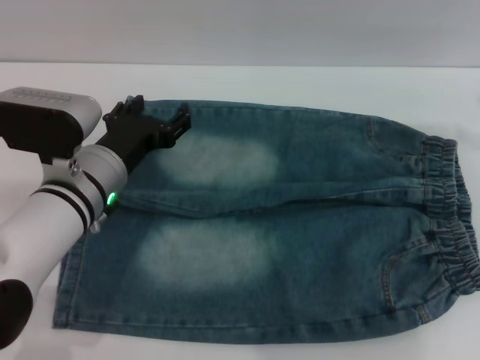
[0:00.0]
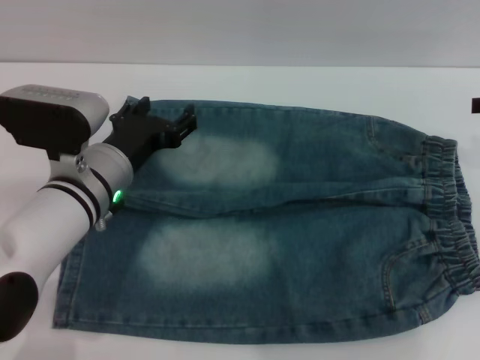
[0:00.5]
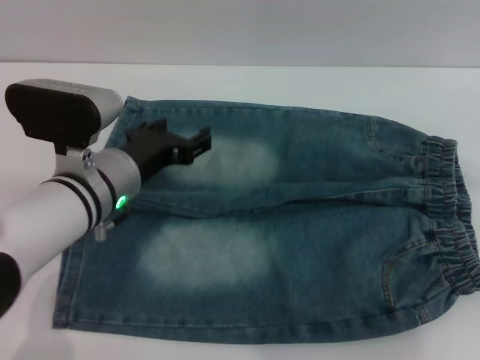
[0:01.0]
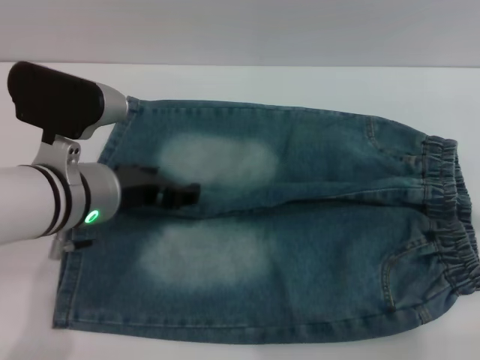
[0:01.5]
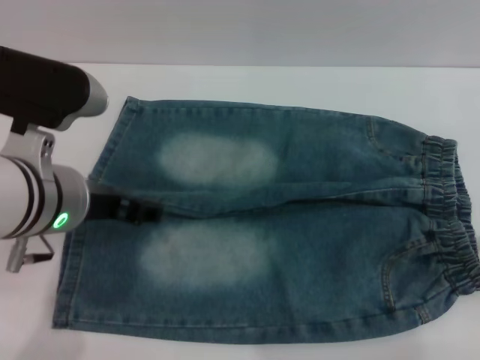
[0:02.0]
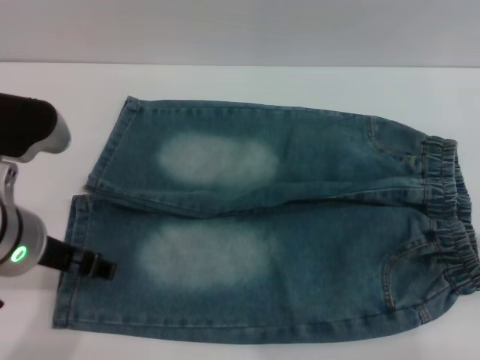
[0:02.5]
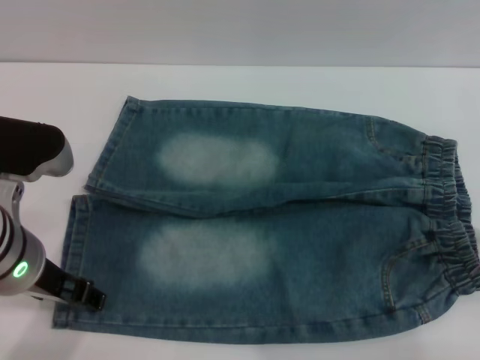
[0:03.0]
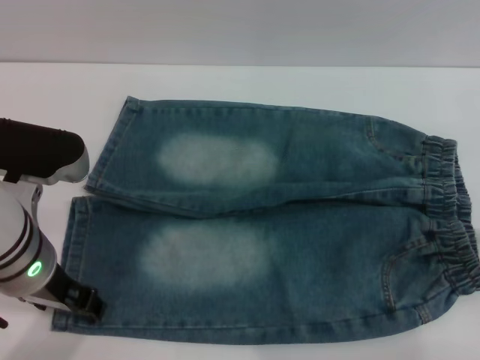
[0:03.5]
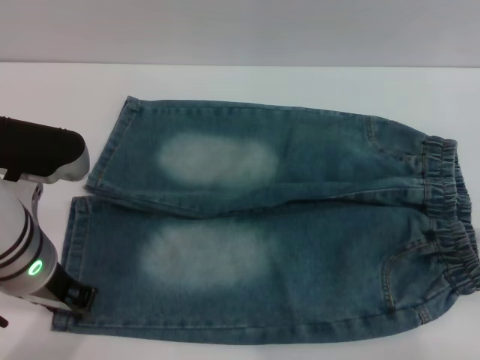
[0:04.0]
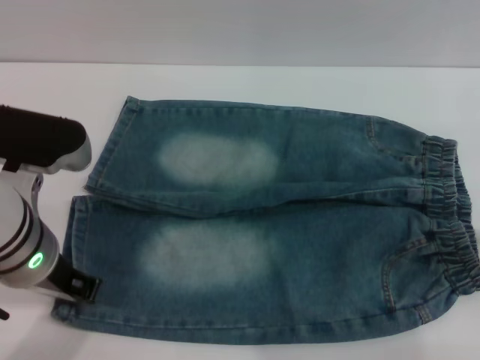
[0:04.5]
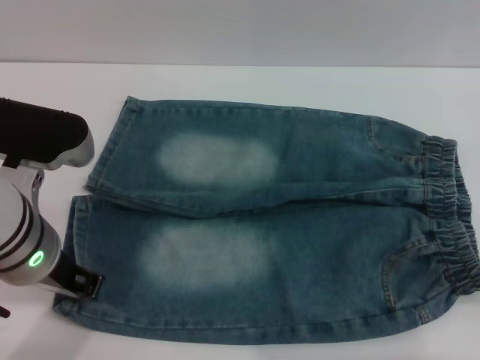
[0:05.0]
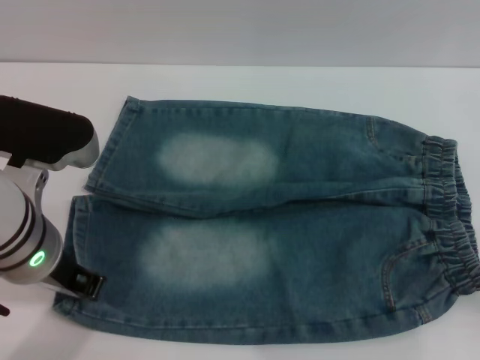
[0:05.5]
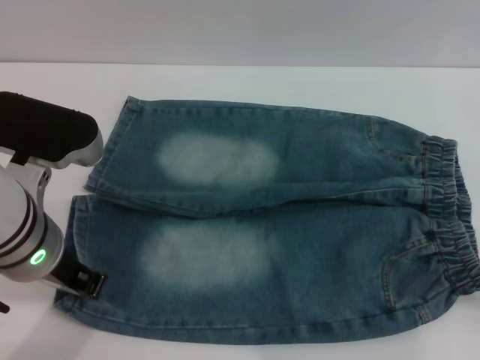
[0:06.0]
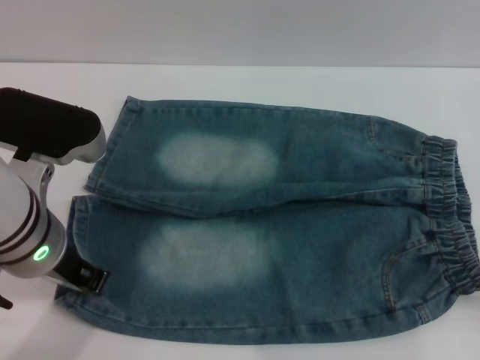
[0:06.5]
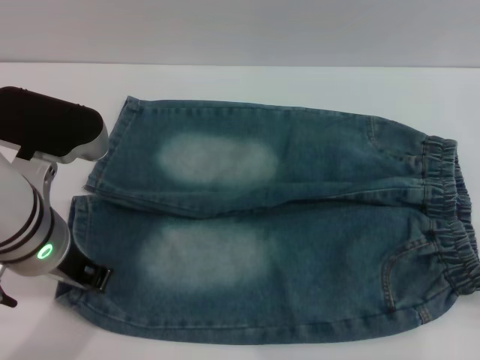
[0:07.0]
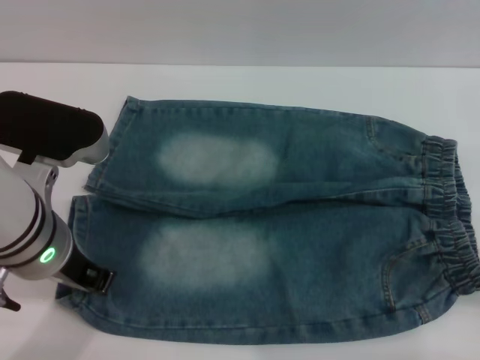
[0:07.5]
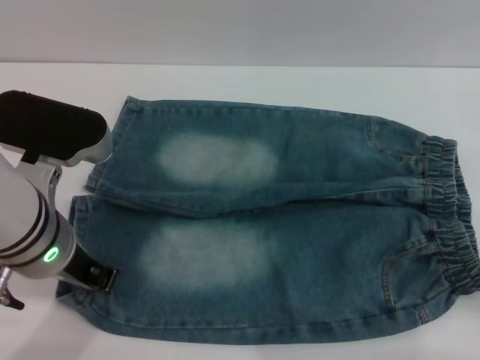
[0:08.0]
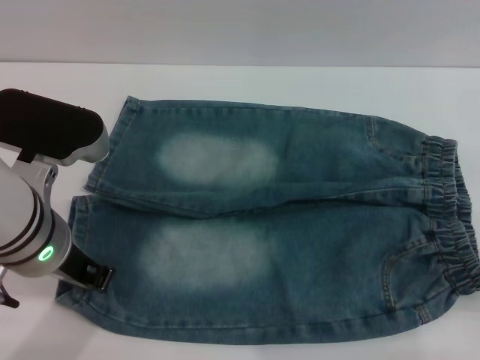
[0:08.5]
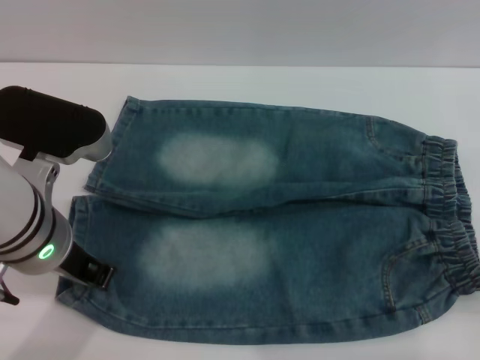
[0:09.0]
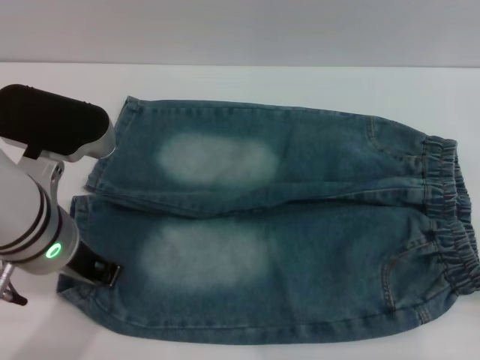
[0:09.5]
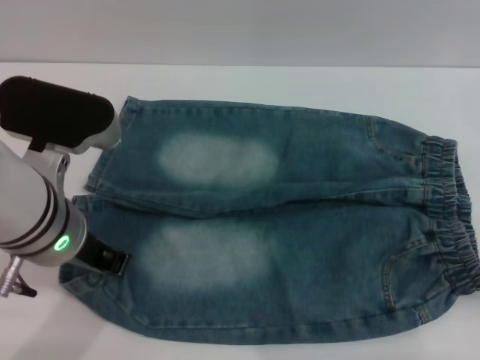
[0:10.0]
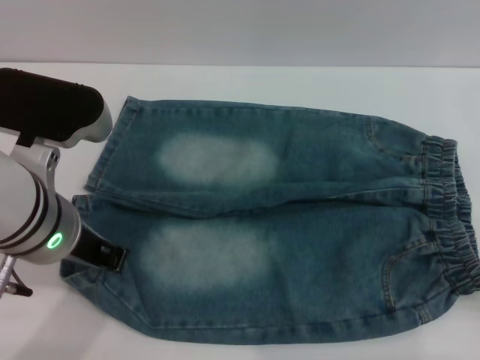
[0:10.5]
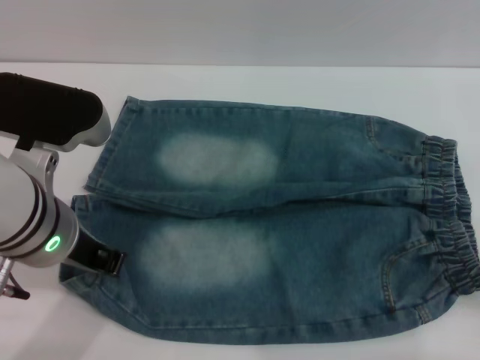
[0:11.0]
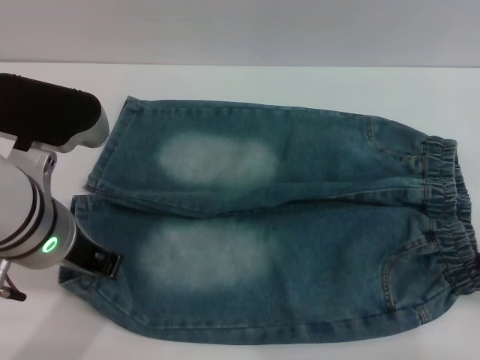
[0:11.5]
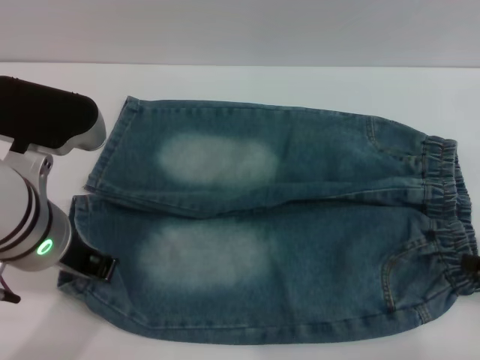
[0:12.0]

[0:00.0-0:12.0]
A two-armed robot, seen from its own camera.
0:00.0 to 0:02.0: The left gripper heads upward, covering some 10 cm.
0:04.0 to 0:06.0: The left gripper closes its fingers.
0:06.0 to 0:08.0: There are only small adjustments of the grippers.

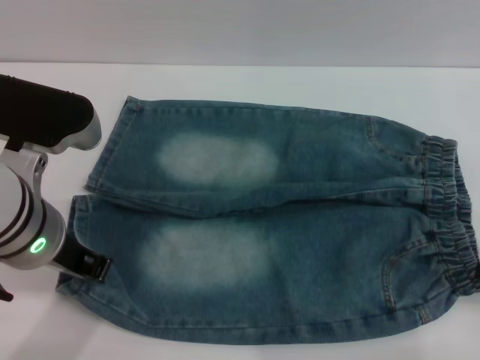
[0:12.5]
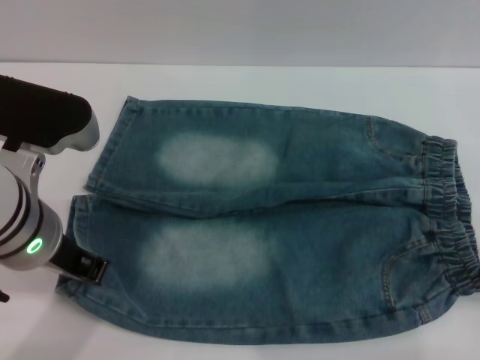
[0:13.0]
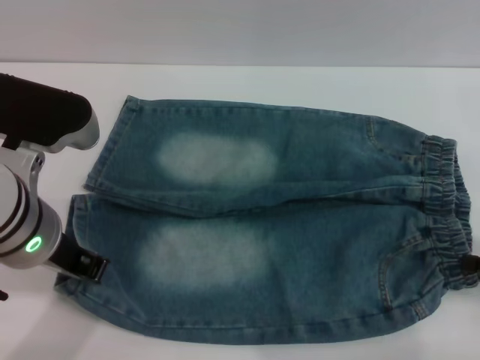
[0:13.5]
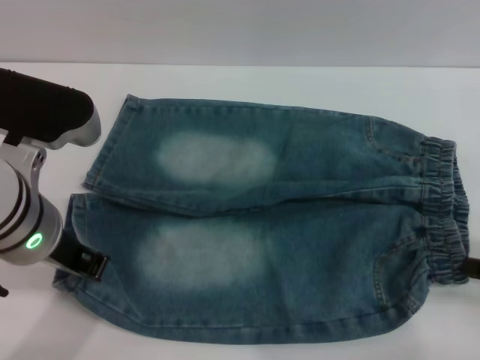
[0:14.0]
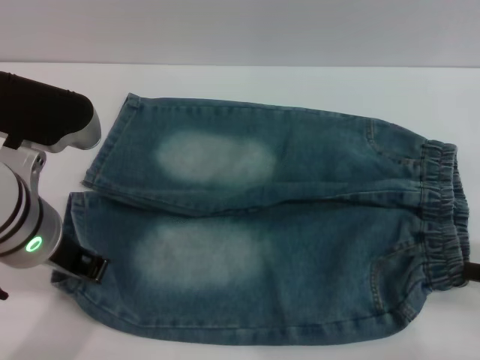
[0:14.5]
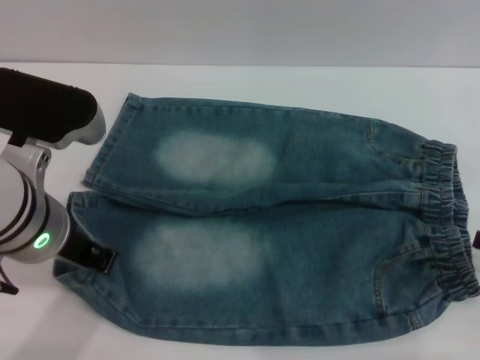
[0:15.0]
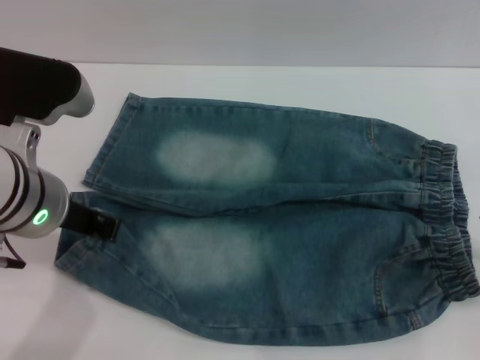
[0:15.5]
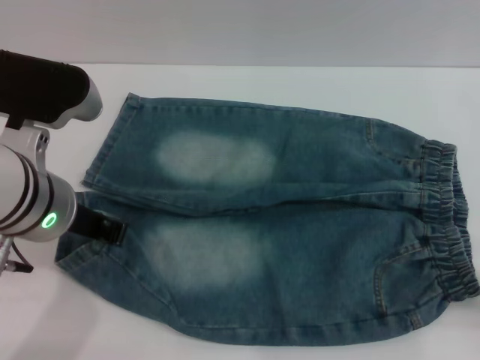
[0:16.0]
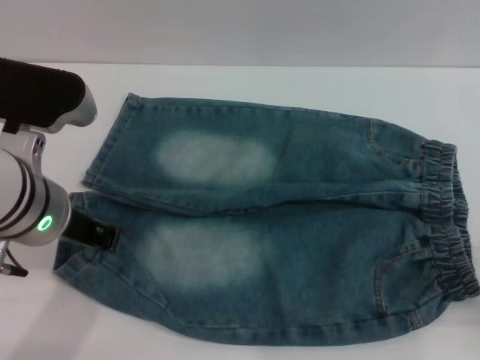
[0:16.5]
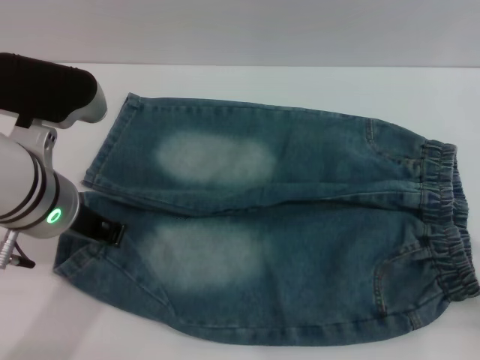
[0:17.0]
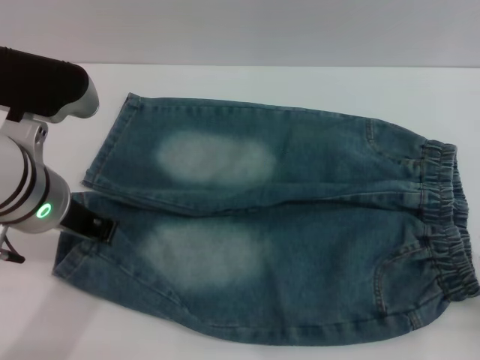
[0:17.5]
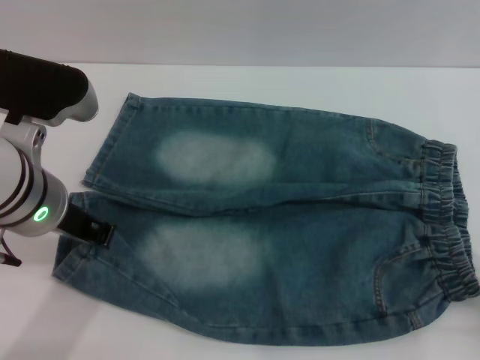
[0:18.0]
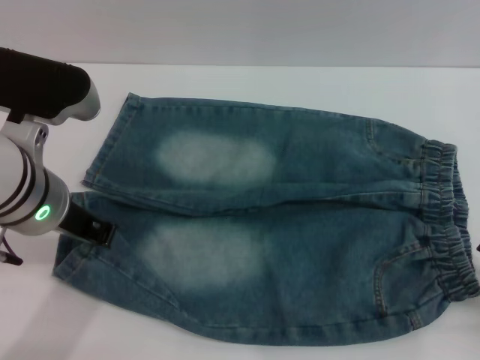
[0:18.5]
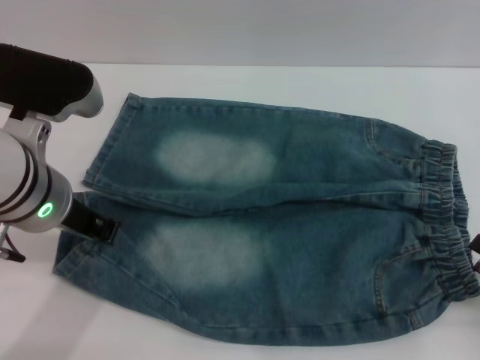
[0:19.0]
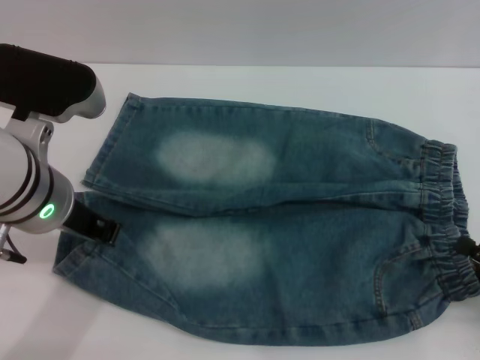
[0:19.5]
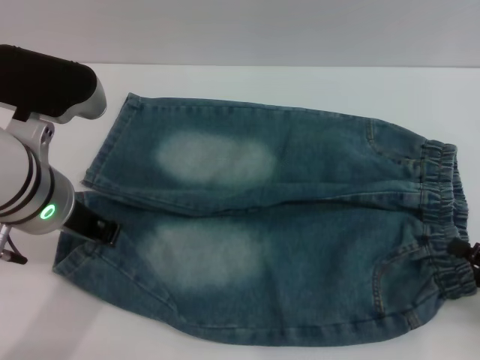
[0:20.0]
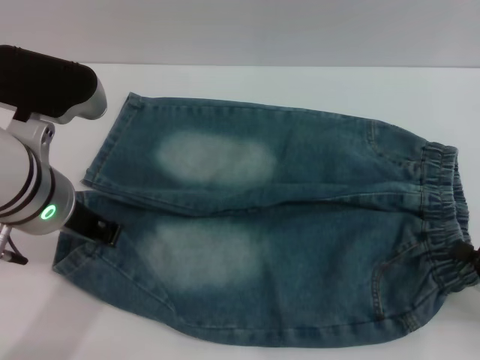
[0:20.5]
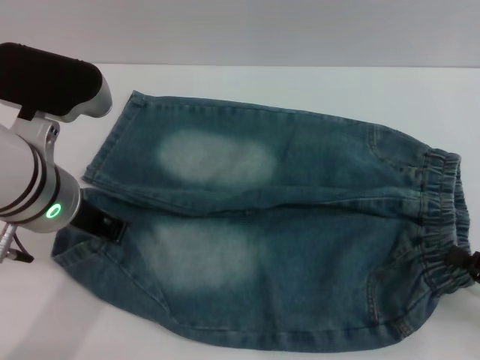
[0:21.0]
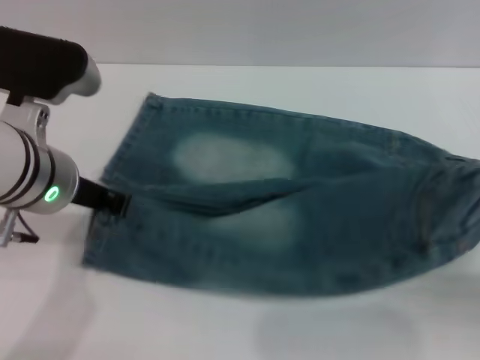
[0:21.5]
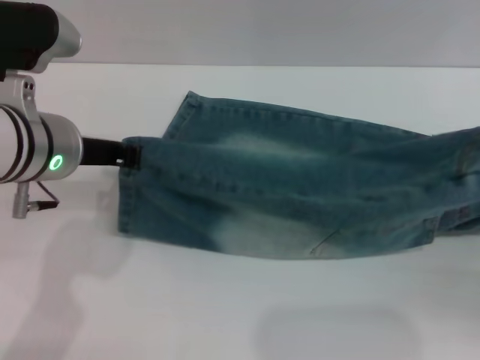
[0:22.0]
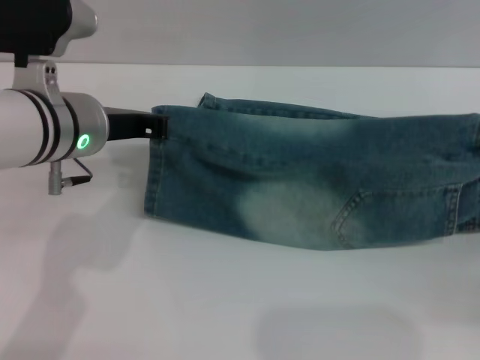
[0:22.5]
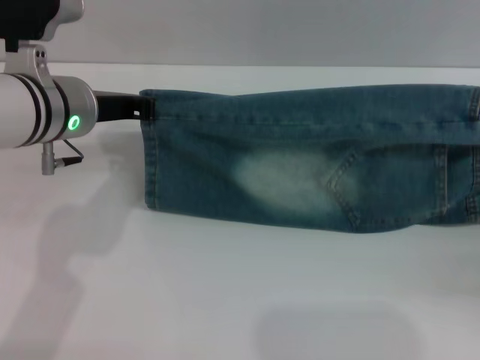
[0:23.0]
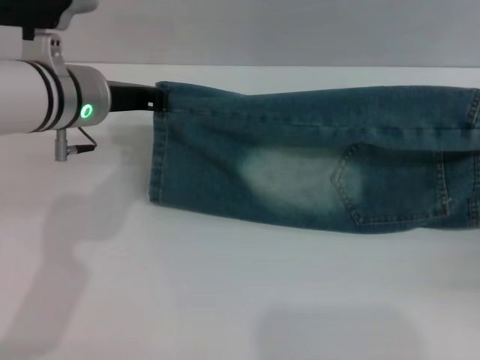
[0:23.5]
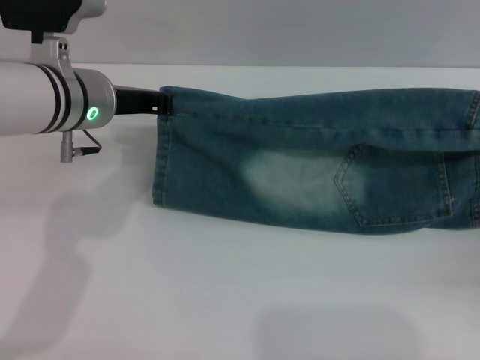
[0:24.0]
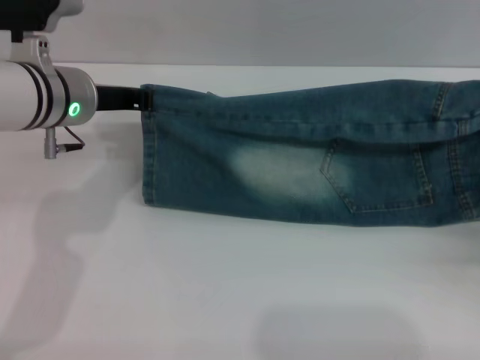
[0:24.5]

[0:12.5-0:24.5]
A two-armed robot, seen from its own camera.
0:12.5 to 0:14.5: The right gripper closes.
0:14.5 to 0:16.5: The right gripper opens.
0:18.5 to 0:20.5: The right gripper closes.
0:20.5 to 0:22.5: The right gripper closes.
0:22.5 to 0:24.5: The grippers both shift forward by approximately 5 cm.

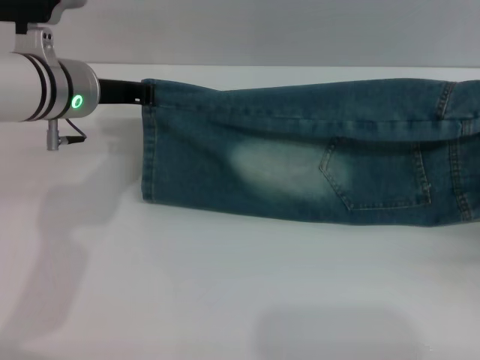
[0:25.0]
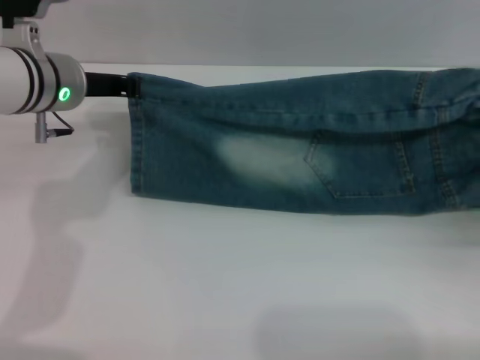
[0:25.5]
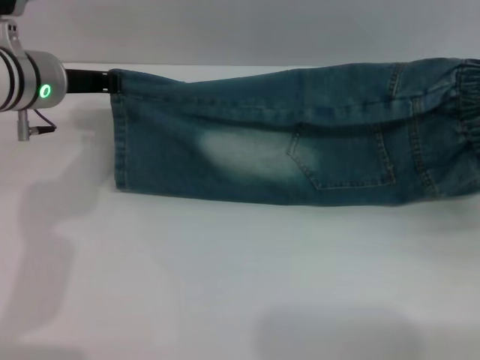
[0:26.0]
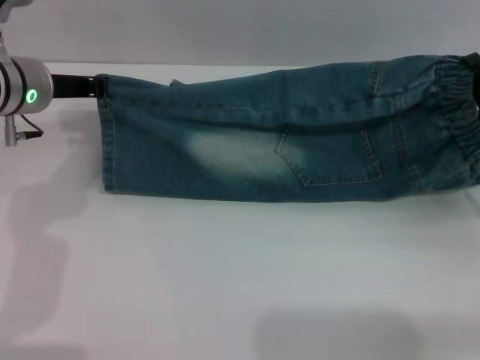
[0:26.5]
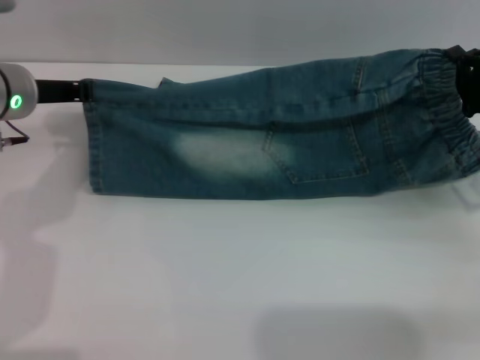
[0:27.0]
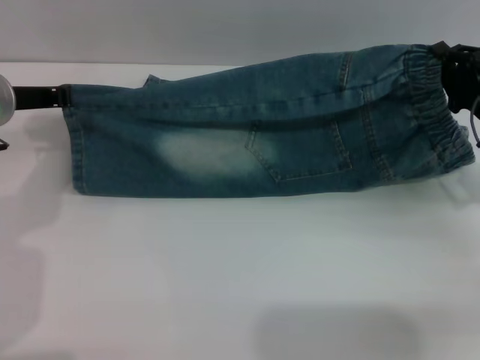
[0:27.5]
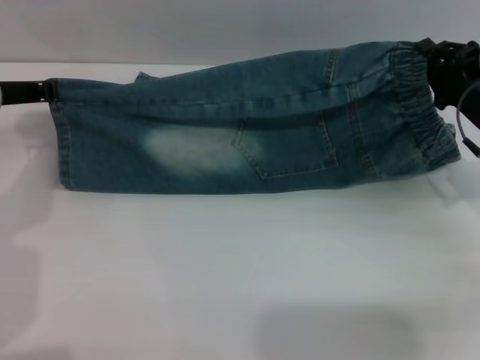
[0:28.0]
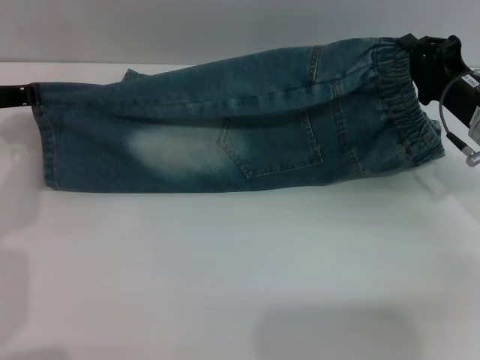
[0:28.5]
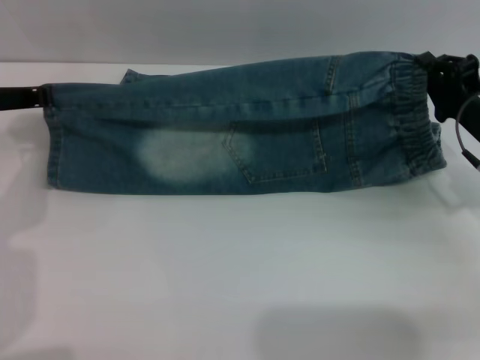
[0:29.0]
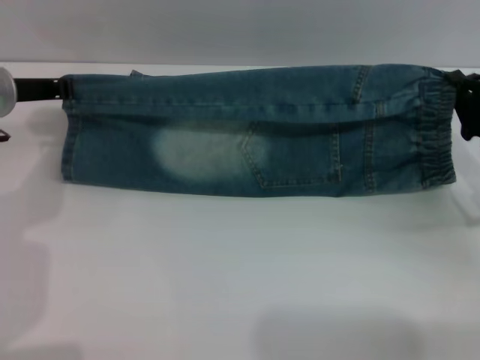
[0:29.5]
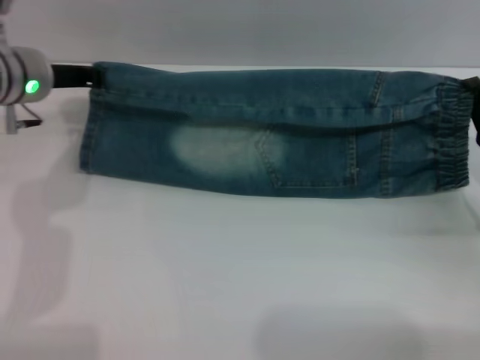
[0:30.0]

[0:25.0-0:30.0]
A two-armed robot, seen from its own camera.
0:25.0 to 0:27.5: The right gripper travels to the left and forward by approximately 10 cm. The left gripper heads to the left, covering about 10 cm.
0:27.5 to 0:30.0: The grippers move only a little.
